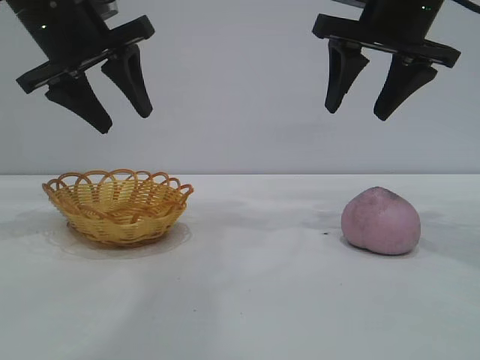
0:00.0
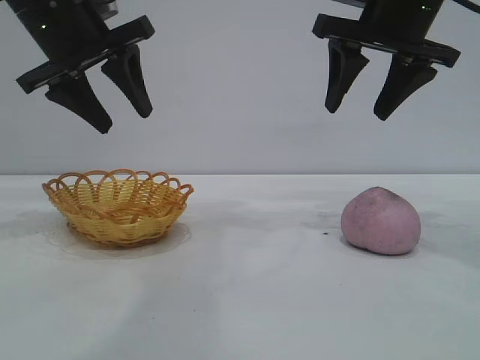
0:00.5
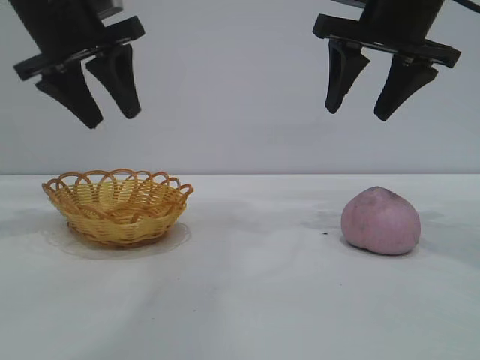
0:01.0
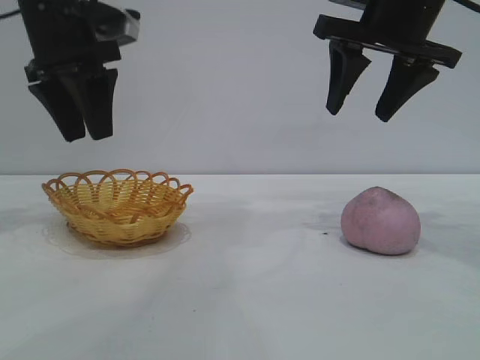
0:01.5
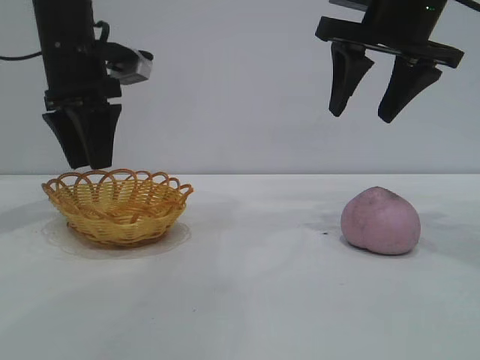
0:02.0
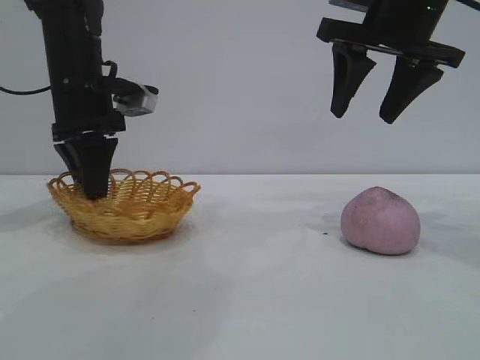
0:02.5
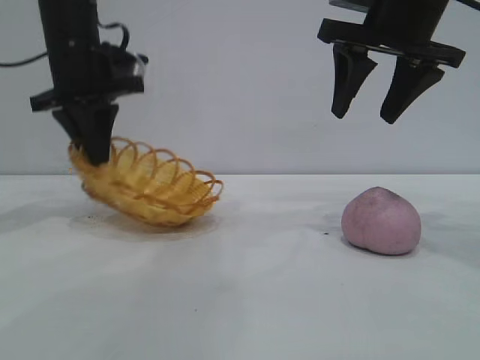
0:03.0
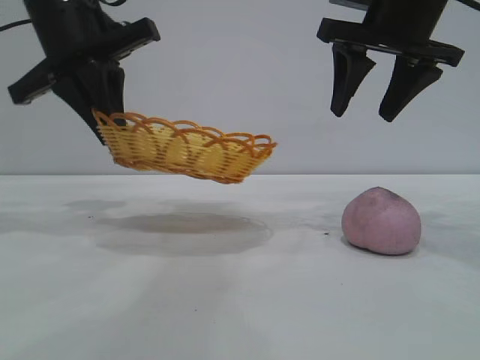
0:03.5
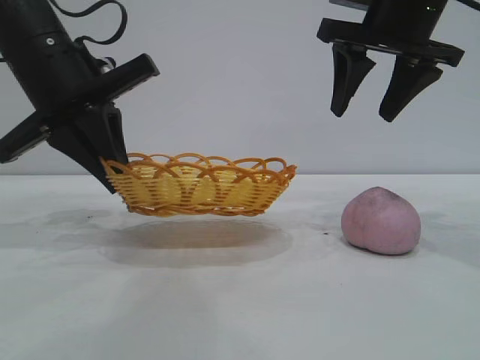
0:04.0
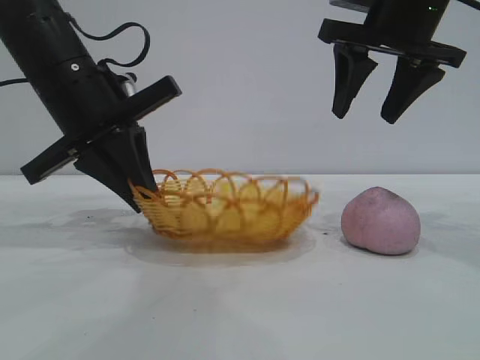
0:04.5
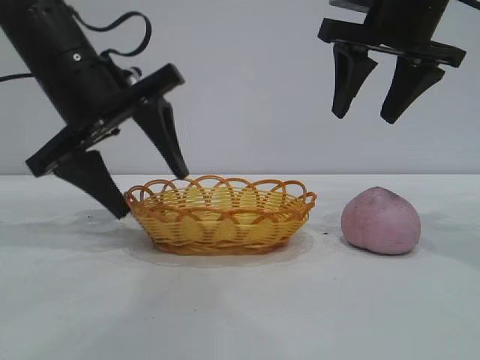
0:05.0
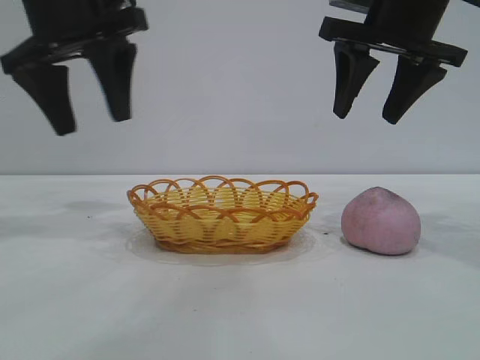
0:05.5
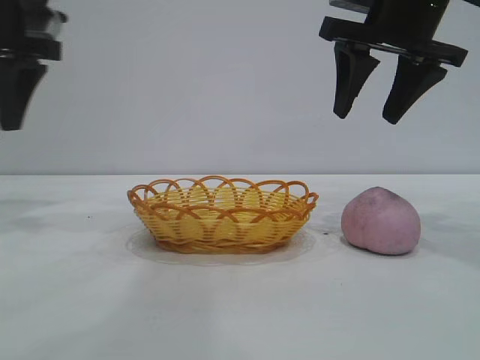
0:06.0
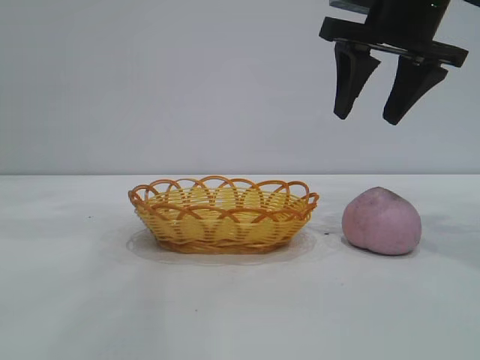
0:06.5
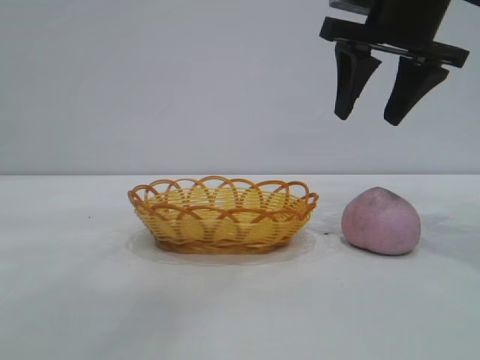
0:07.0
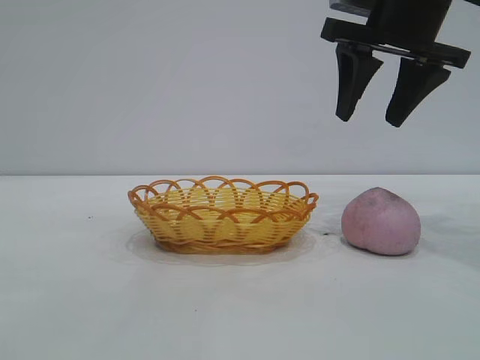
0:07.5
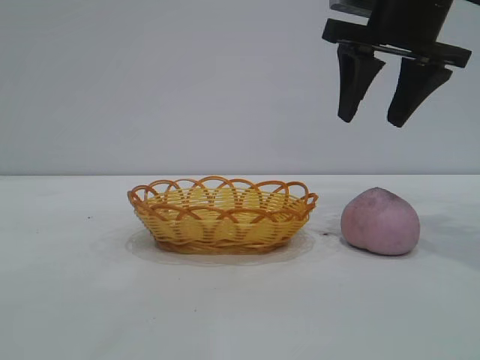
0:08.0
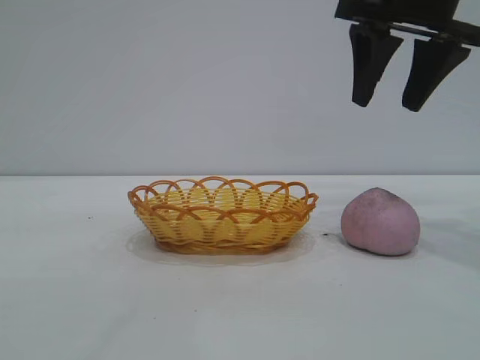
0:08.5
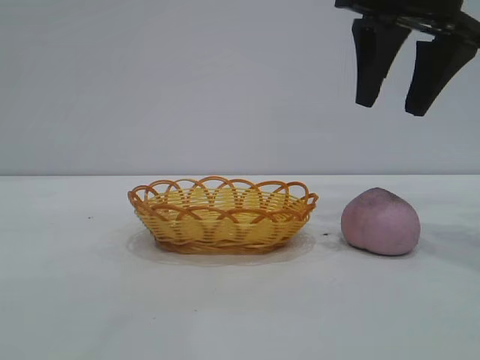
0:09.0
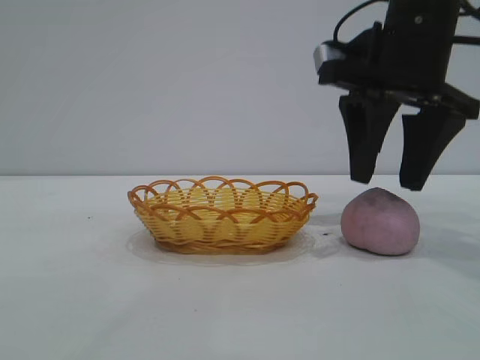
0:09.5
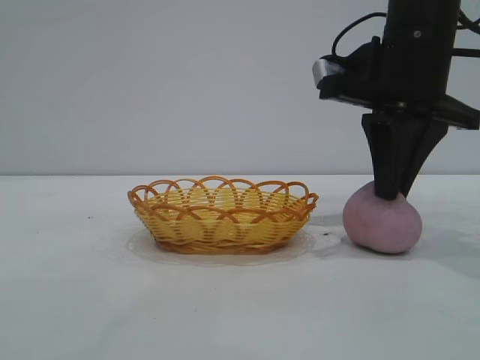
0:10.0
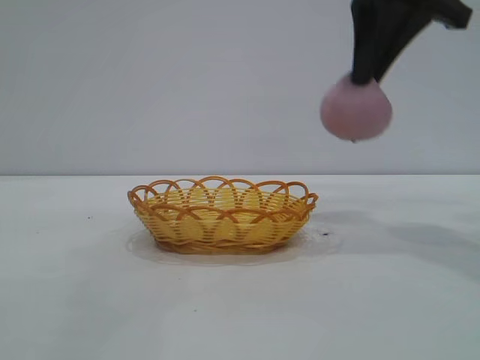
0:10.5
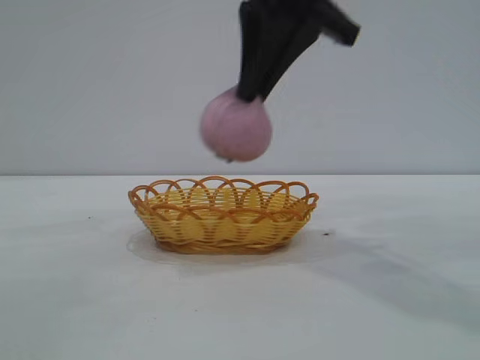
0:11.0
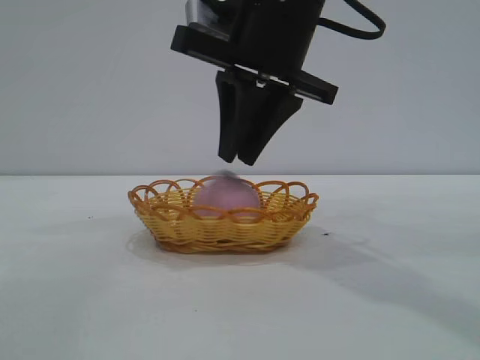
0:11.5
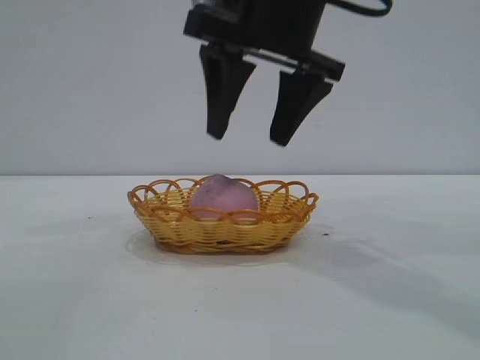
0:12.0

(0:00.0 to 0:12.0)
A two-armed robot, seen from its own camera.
Task of the whole recording: pick up the peach and put it into the basket.
Step, 0:00.0 - 0:05.0: Move the basket to the center of view.
Step, 0:05.5 - 0:10.0: Pick up the peach.
